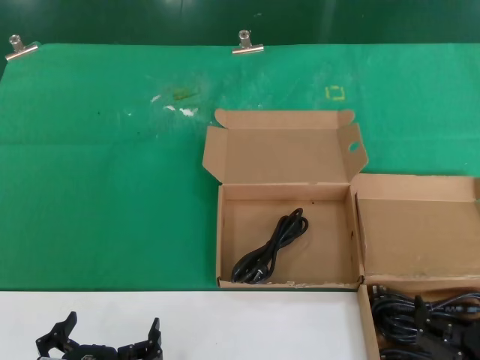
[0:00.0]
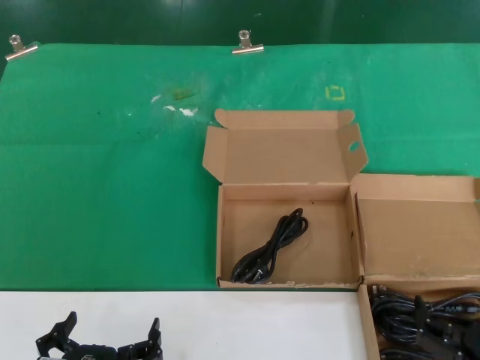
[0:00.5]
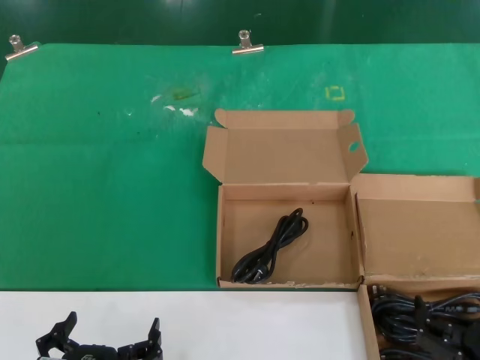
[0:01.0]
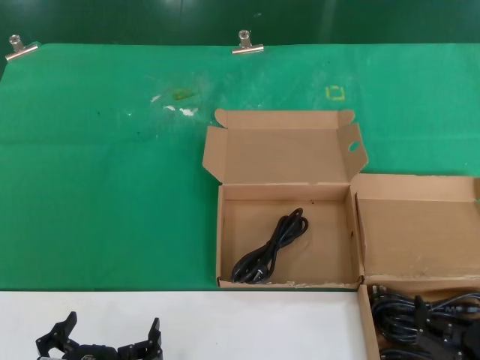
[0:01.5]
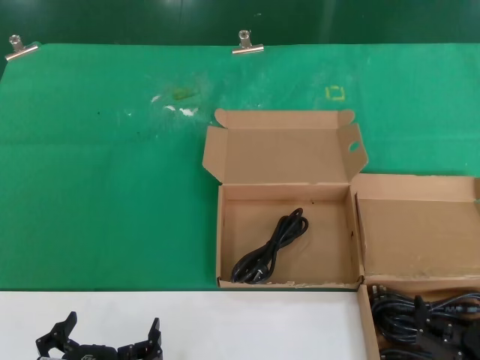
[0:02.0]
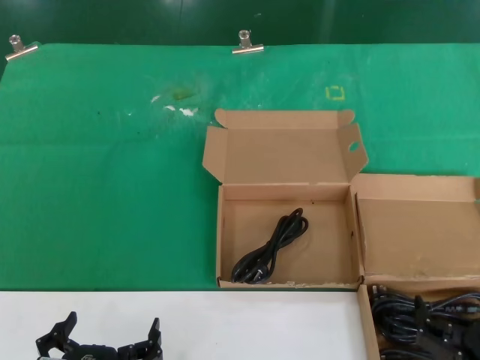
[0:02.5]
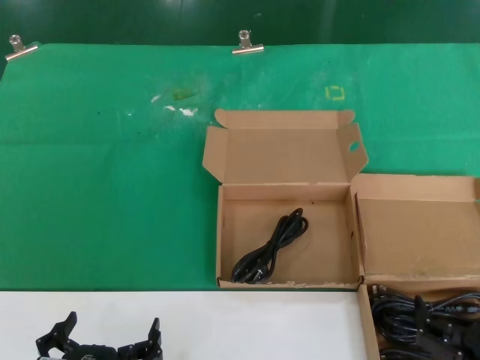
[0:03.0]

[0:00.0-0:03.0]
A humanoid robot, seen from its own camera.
Task of the whole recording: take the parts from the box containing them and put them into an empty box.
0.0 to 3.0 s: Both hands stay about where they are.

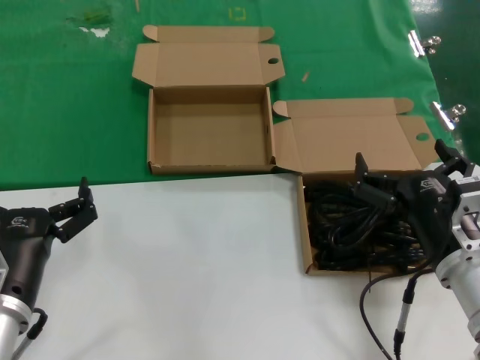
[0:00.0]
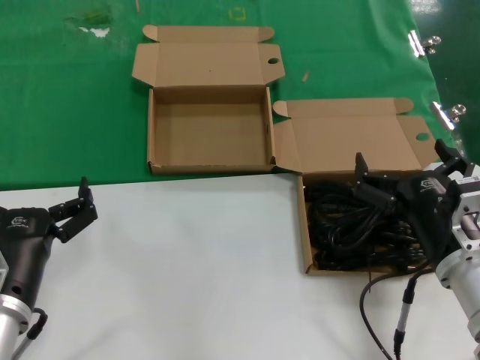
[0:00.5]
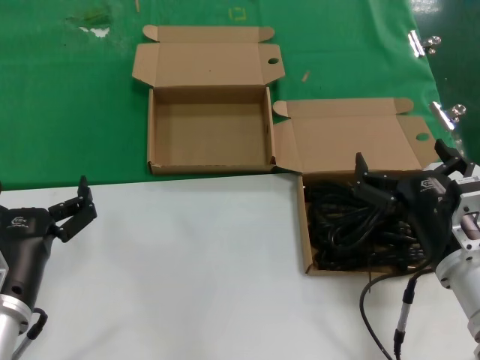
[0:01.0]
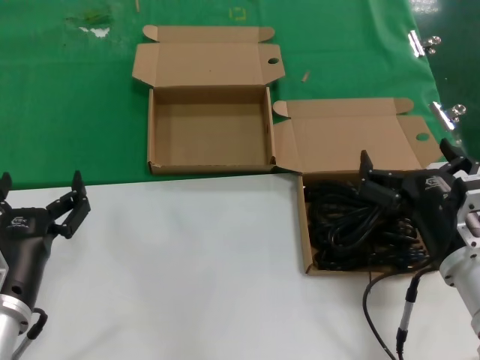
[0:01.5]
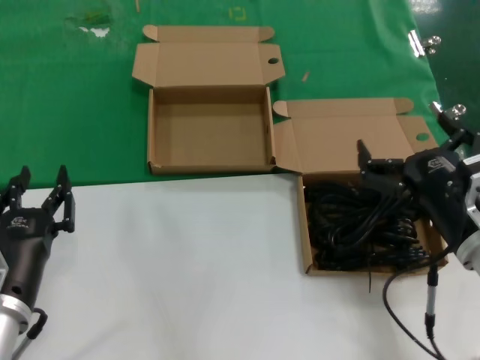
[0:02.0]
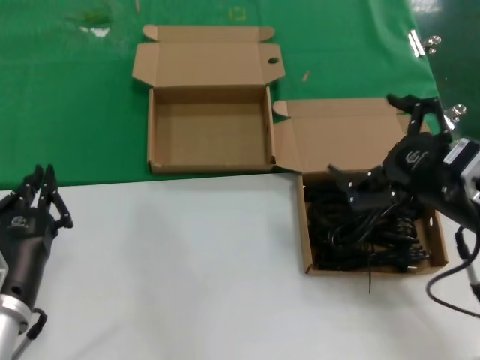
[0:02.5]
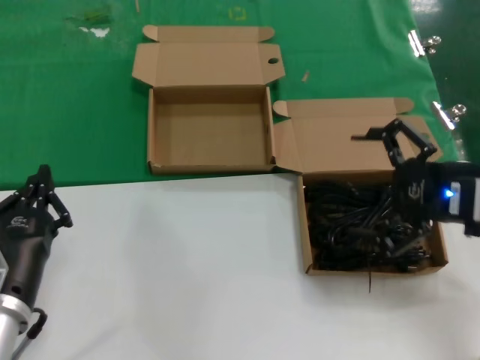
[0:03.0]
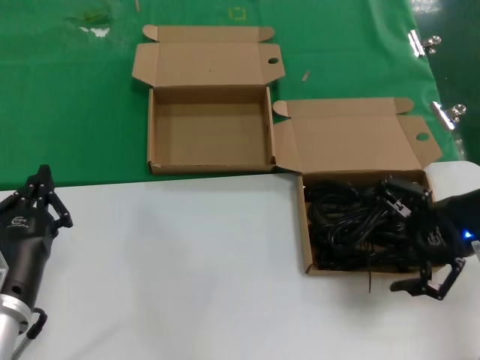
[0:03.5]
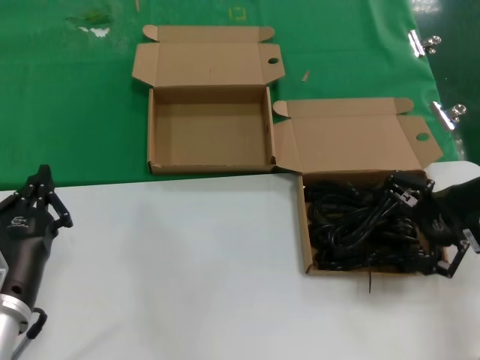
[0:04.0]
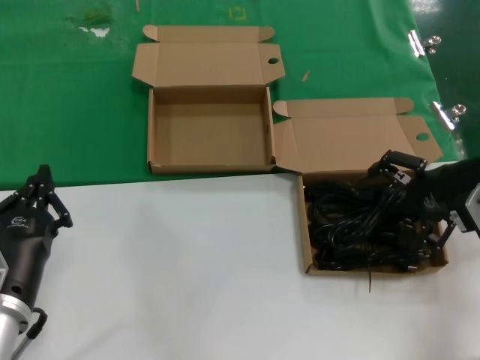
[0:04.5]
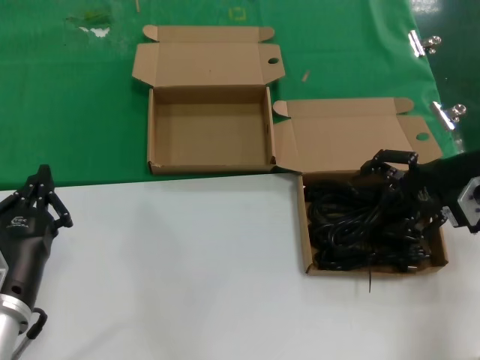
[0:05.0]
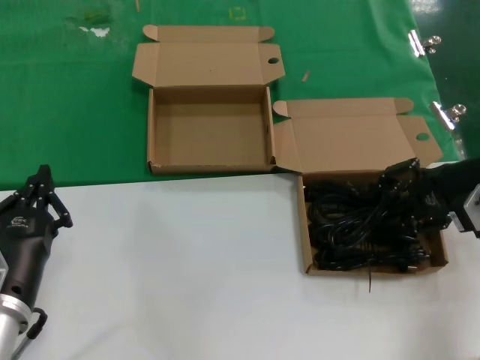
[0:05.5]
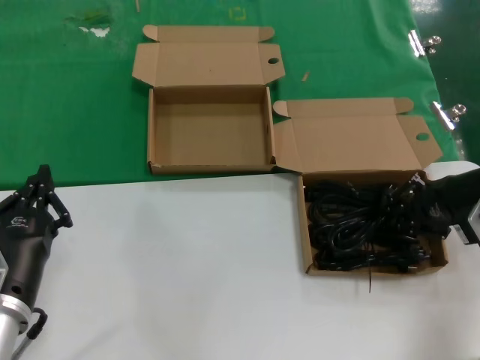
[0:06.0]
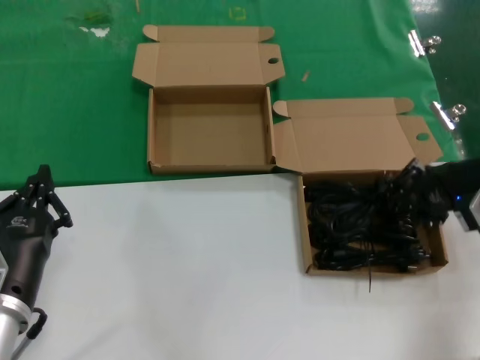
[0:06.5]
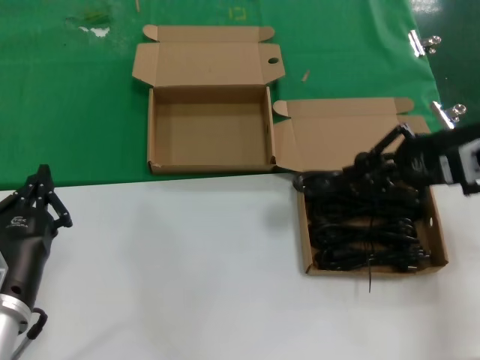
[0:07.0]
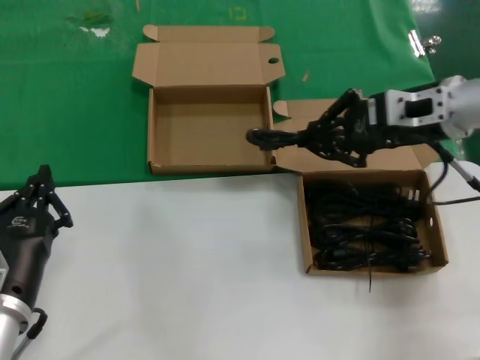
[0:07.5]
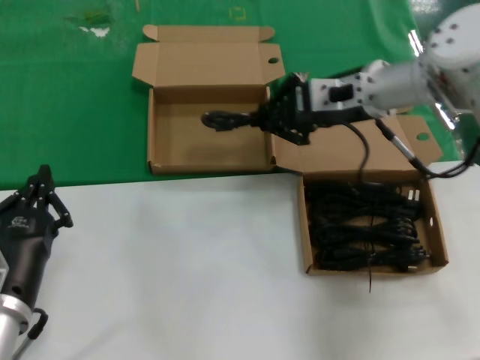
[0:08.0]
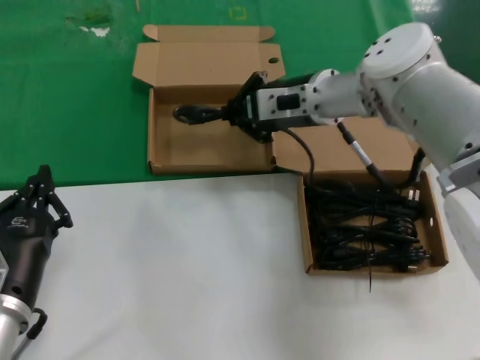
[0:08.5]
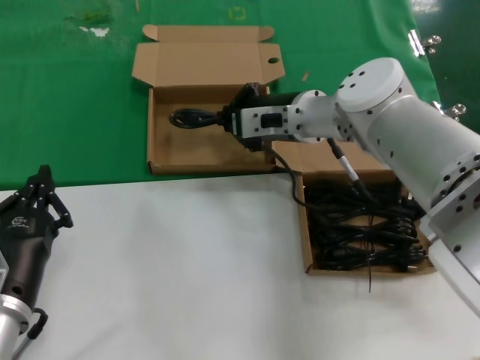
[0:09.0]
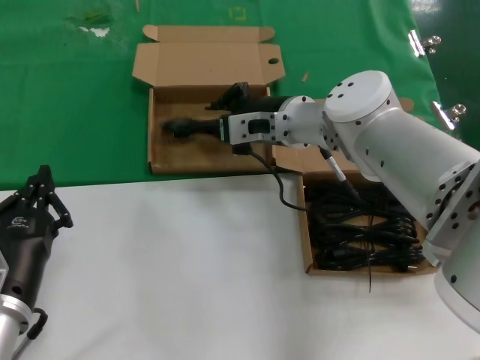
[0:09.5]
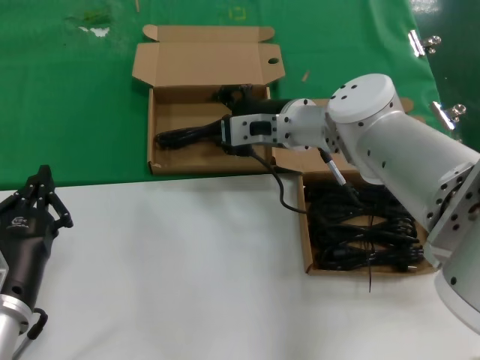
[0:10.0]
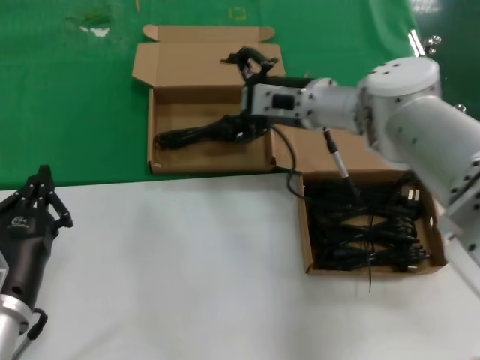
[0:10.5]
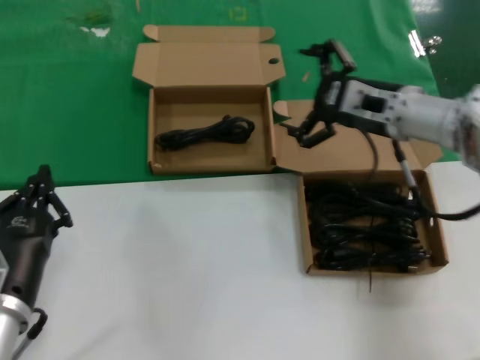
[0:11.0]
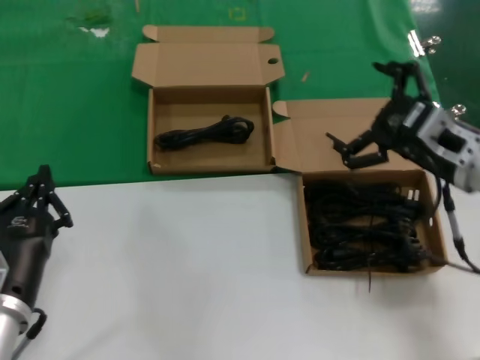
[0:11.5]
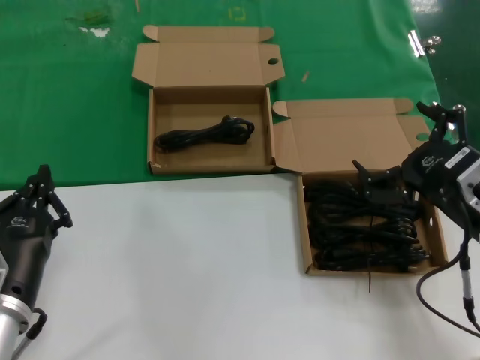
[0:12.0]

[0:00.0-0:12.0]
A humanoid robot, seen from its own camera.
Task of the whole recording: take the parts from the box containing them and put them into an empty box.
Step, 0.0 to 6.0 s: Grasp the data cable.
Step, 6.5 to 9.5 s: Place the data cable in the another box.
0.0 to 2.0 s: The hands move only a little.
2.0 to 4.0 s: The right hand moves to the right, forward and upward, some 20 cm.
4.0 to 6.0 s: The right hand ends up approximately 5 cm from where it was.
6.0 to 8.0 s: The right hand shifts approximately 20 cm to the left, forward and upward.
8.0 to 10.0 s: The right hand goes some 15 cm to the left and downward.
10.0 to 12.0 s: The right hand is displaced backward and to the right by some 30 cm.

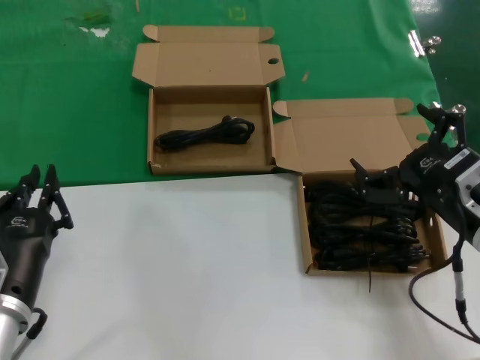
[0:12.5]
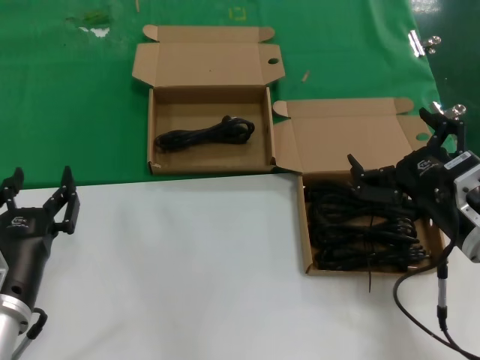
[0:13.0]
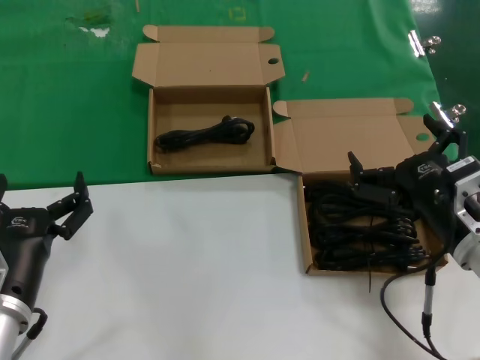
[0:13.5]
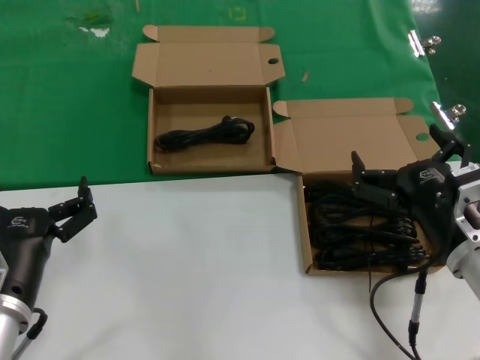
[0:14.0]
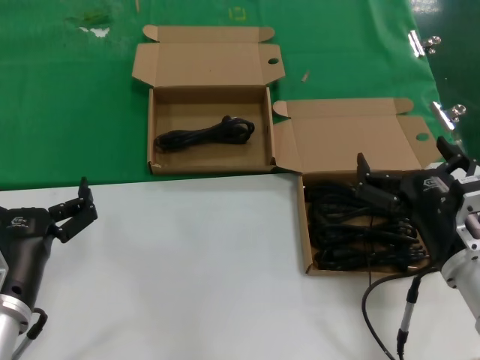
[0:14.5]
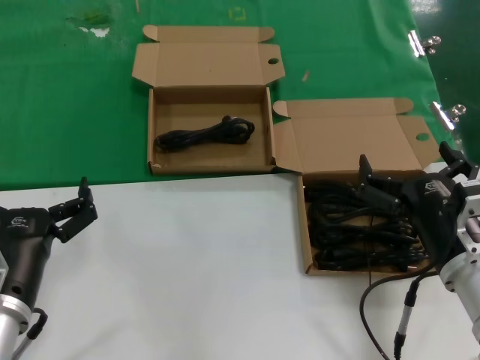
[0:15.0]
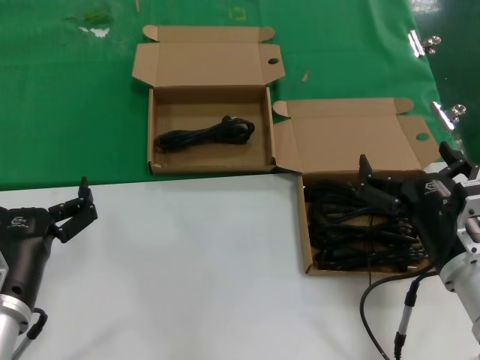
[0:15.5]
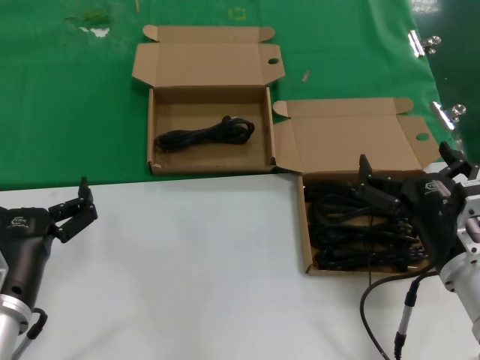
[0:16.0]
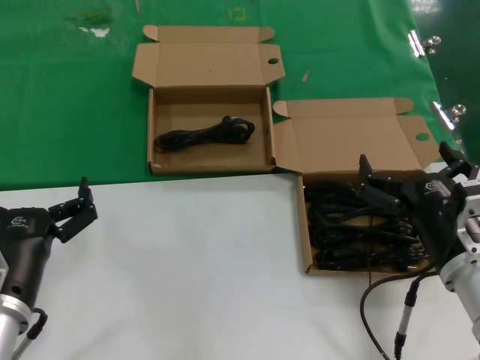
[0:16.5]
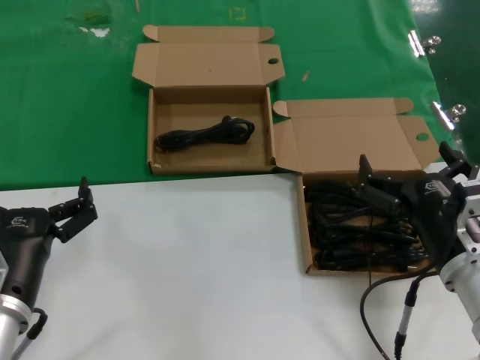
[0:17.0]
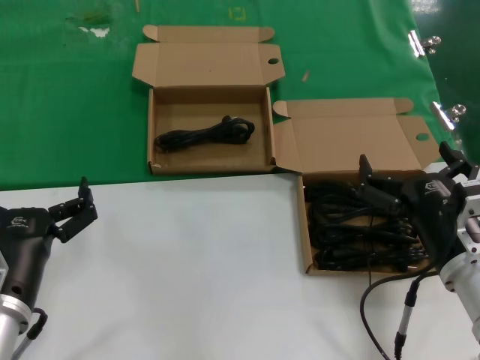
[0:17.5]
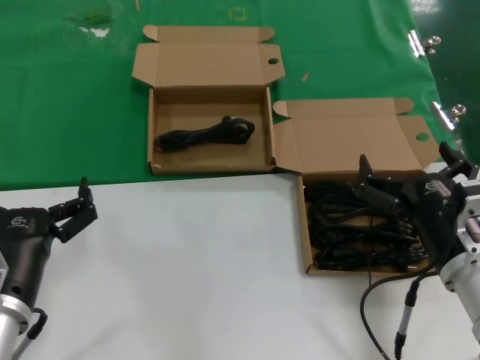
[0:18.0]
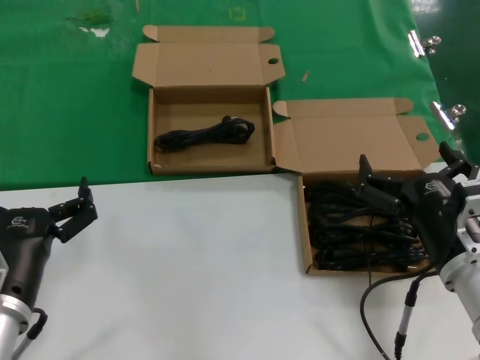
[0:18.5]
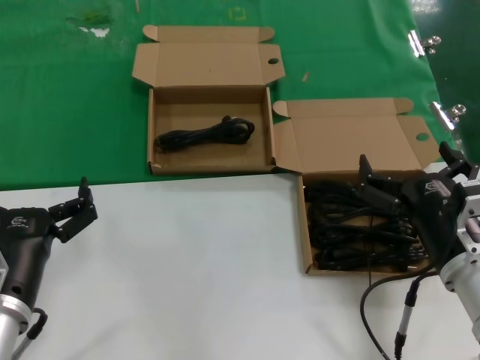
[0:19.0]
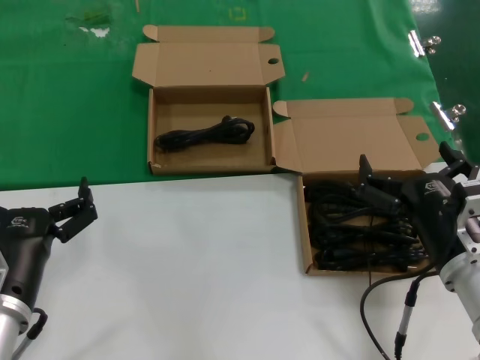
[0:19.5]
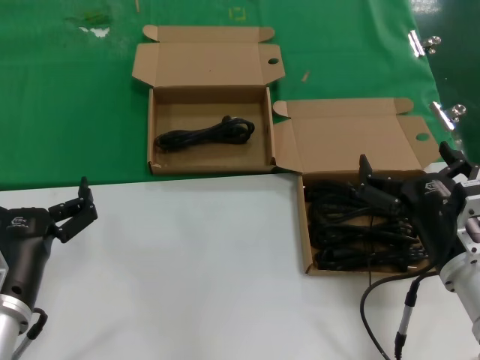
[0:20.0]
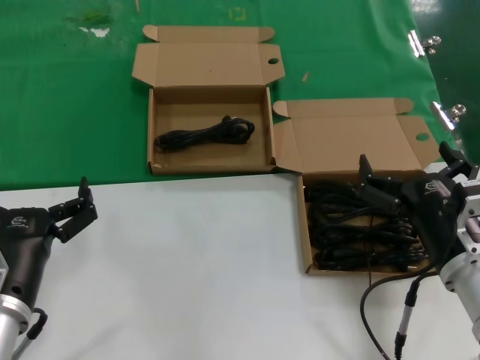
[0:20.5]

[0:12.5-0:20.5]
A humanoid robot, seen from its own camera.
Task of the whole recording: take the parts from the box containing them and put them into an empty box.
12.5 to 14.5 s: The right hand ends up some 5 cm from where it was.
14.5 to 20.5 s: The two hands keep their place.

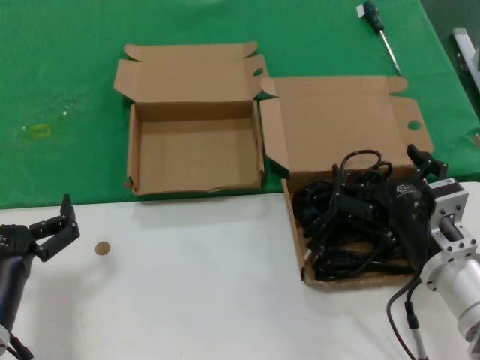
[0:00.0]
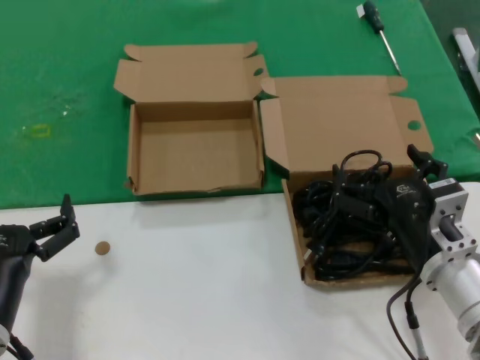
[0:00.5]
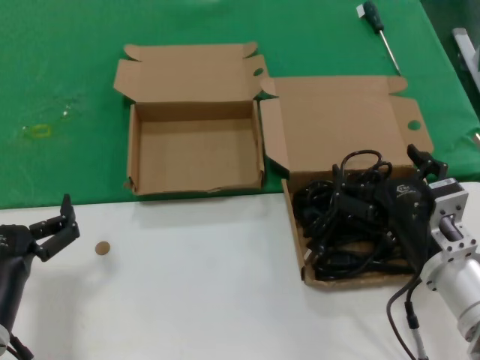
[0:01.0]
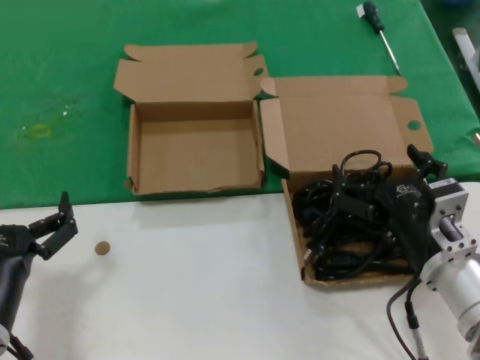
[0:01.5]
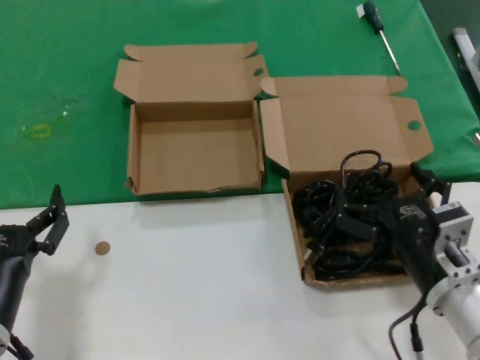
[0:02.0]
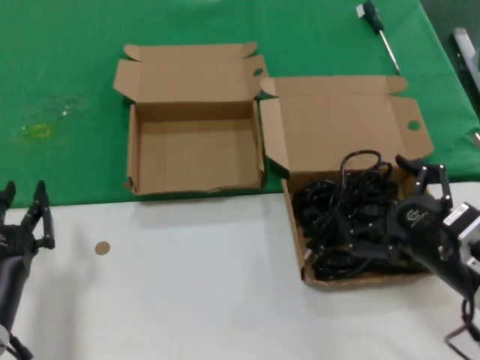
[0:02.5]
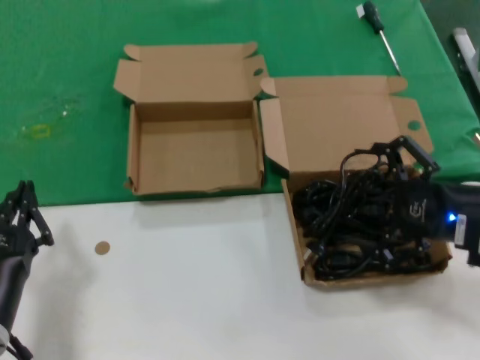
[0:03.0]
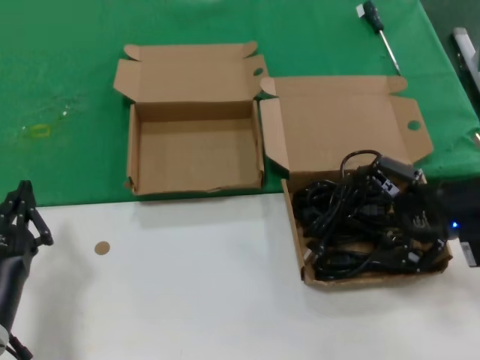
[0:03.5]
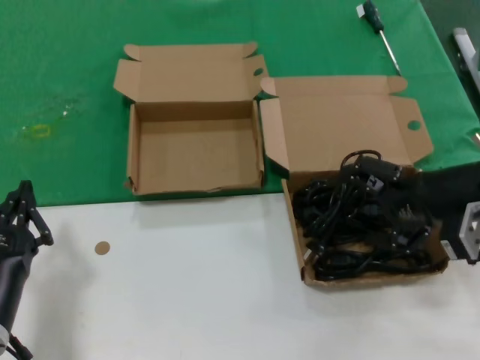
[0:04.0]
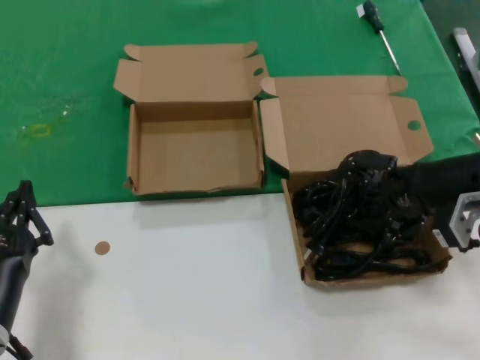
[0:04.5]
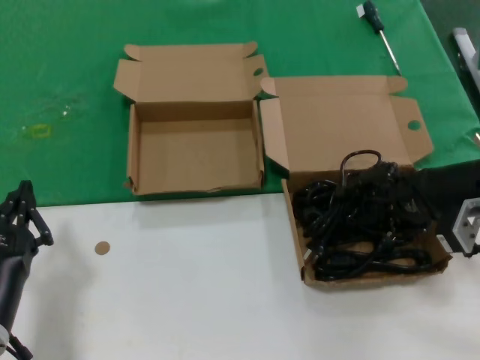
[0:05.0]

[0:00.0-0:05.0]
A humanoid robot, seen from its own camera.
Task of the whole recording: take the parts from the box containing them and put them into an empty box.
0.0 to 2.5 s: The right hand shifts by roughly 5 cm.
2.5 to 5.0 s: The right hand travels forward, upward and to the right by roughly 20 cm.
